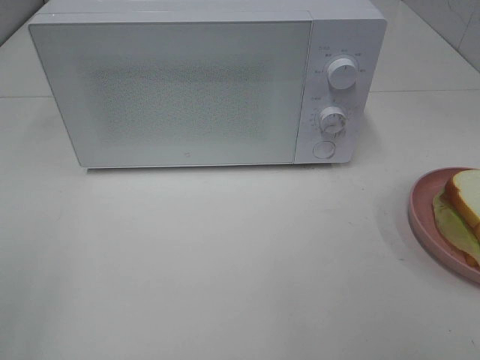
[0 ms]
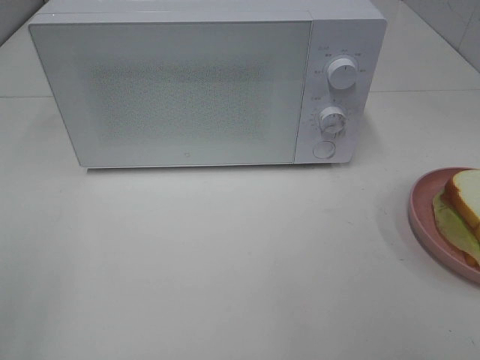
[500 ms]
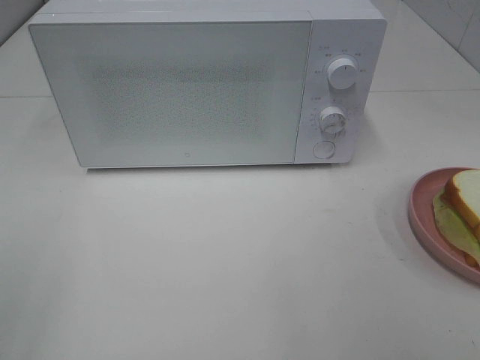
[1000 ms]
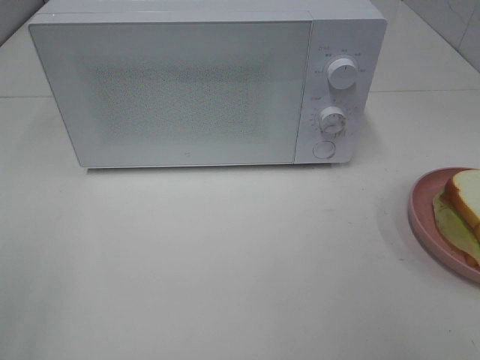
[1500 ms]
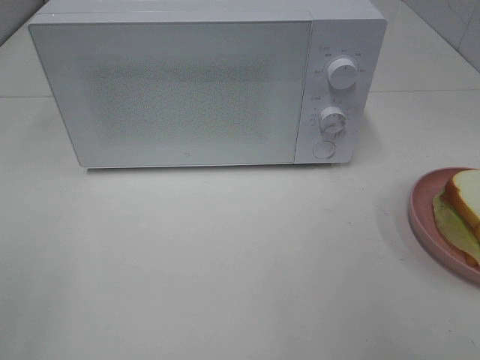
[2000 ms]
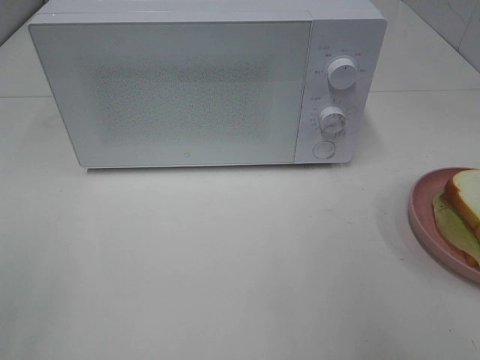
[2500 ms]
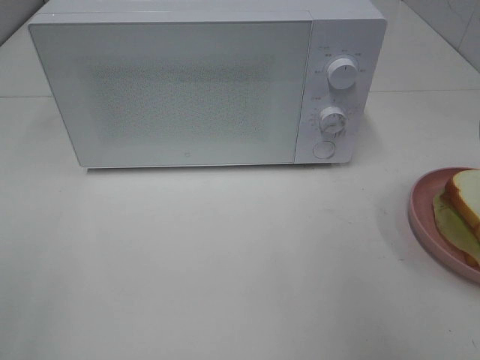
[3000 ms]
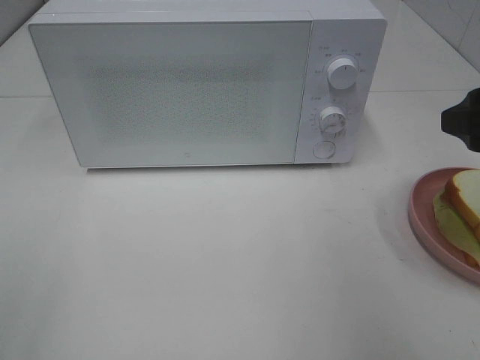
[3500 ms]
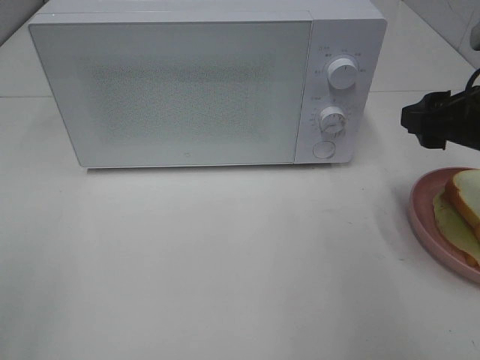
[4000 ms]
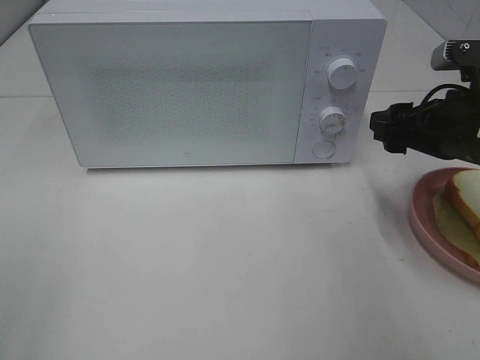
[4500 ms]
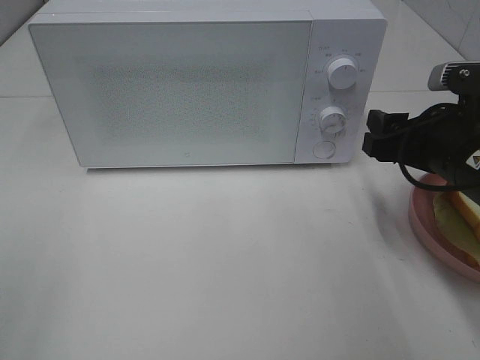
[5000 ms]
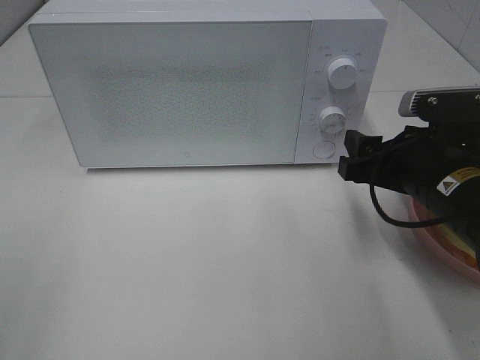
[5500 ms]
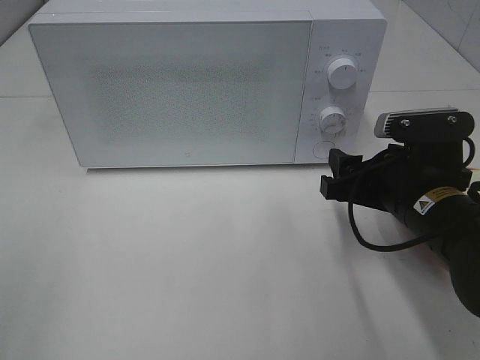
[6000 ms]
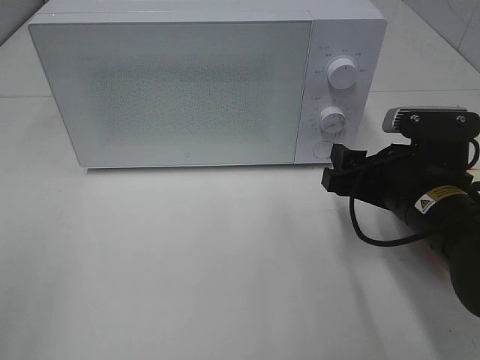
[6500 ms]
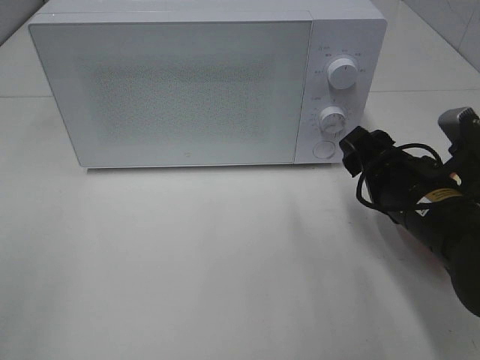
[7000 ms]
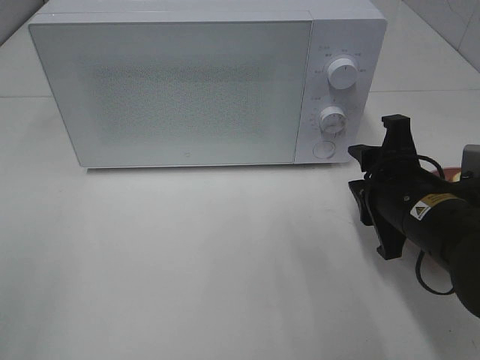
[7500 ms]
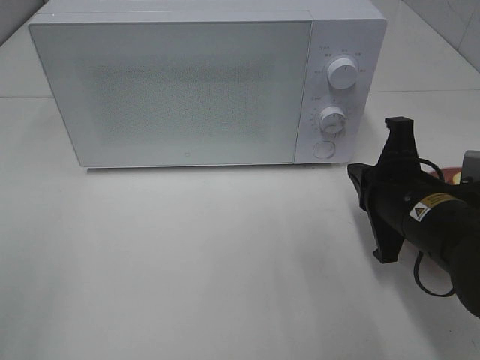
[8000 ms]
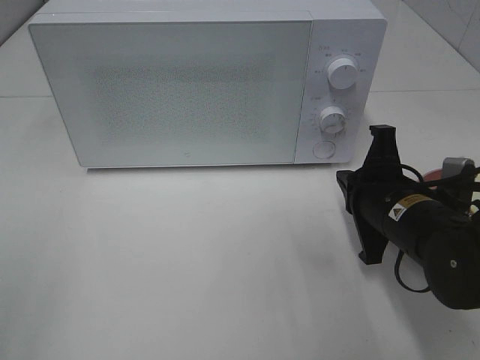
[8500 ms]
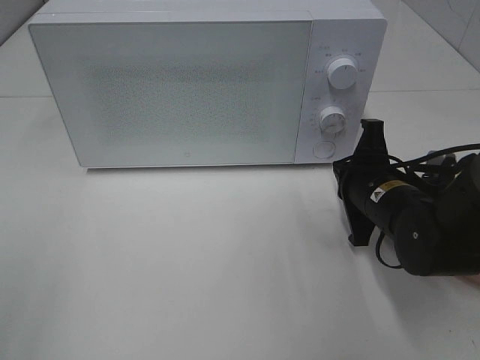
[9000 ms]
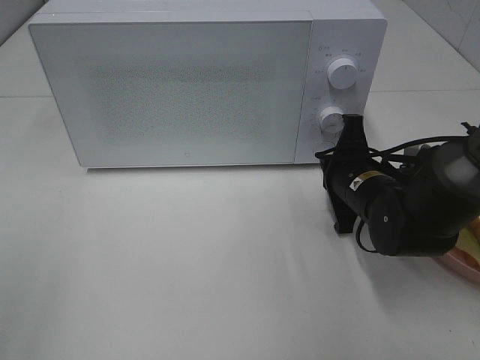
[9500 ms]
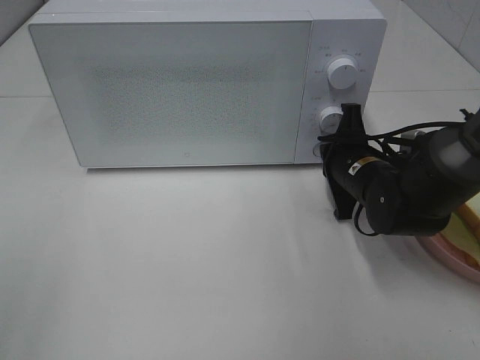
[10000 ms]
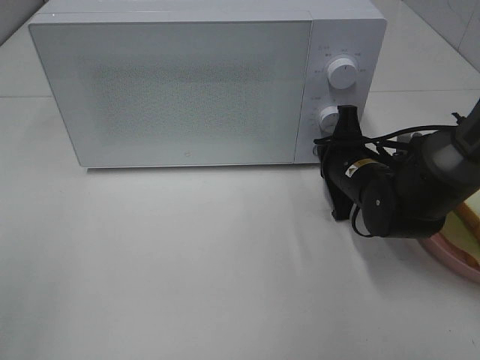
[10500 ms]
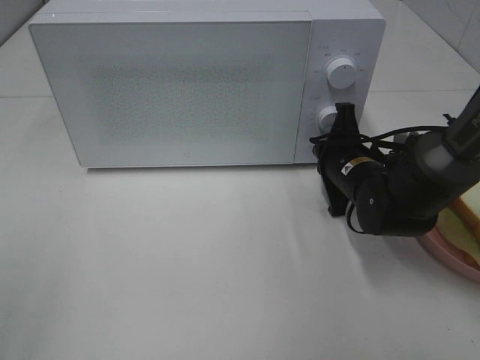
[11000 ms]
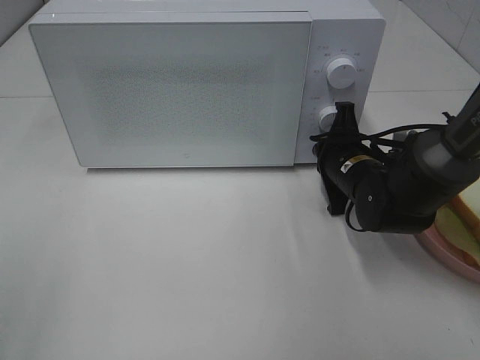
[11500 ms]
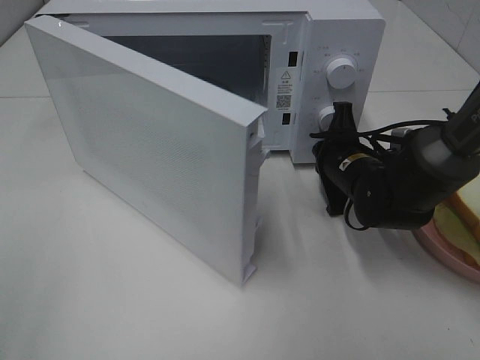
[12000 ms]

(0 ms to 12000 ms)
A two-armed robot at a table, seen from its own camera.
Task of the whole recording: Heat Sandwich.
2000 ms - 4000 ms: The right gripper heads forward and downward, covering some 20 cm.
4000 ms - 6000 ms: The right gripper shifts some 10 cm downward and to the left.
6000 ms - 8000 ms: The right gripper closes.
8000 ms - 10000 ms: The right gripper travels forward by some 10 cm.

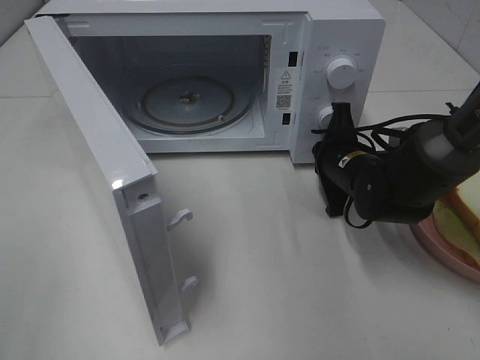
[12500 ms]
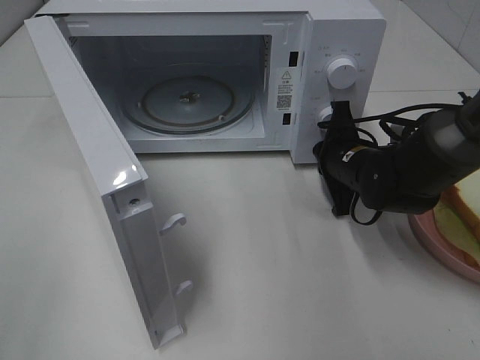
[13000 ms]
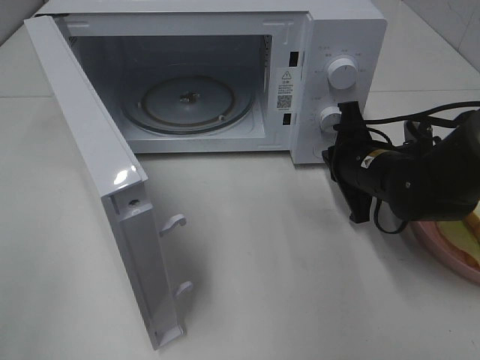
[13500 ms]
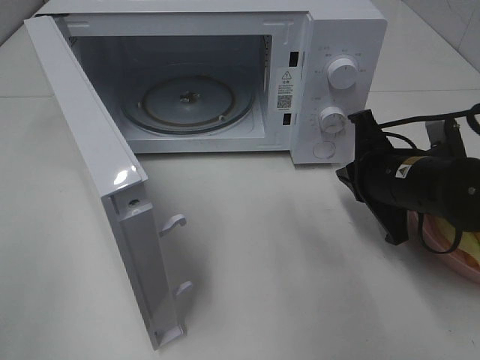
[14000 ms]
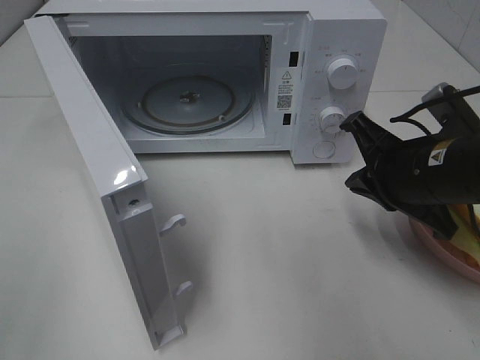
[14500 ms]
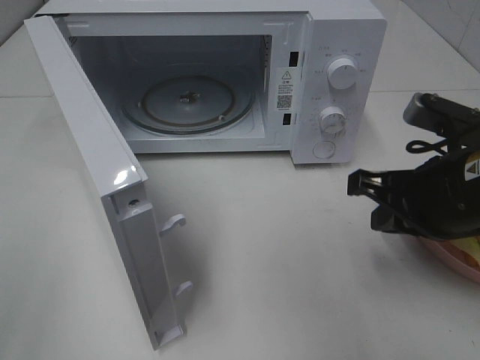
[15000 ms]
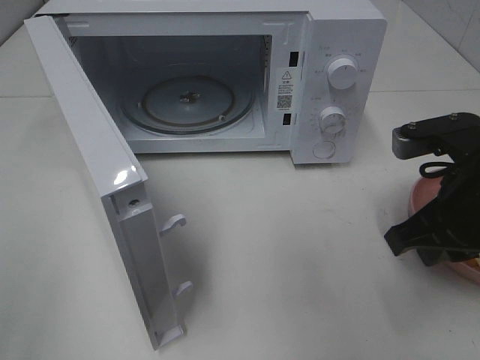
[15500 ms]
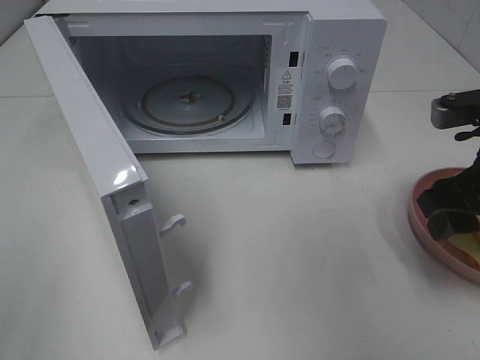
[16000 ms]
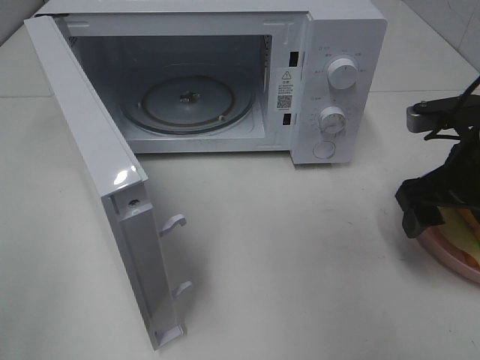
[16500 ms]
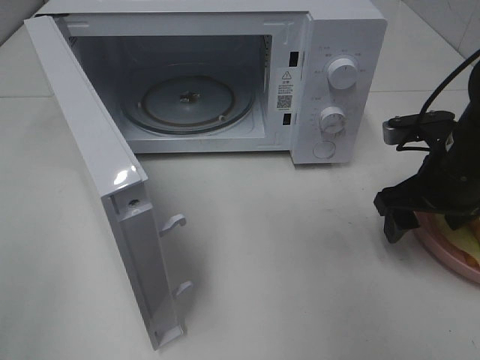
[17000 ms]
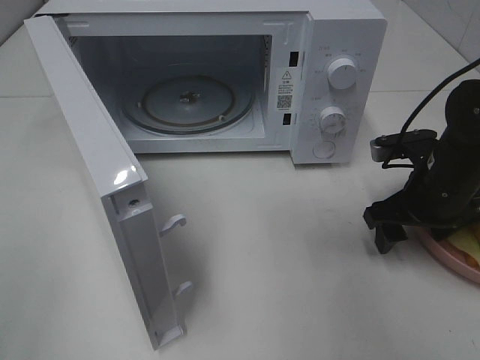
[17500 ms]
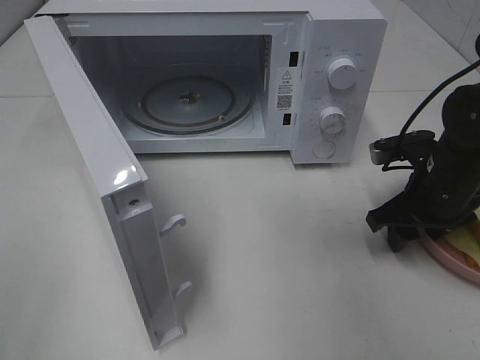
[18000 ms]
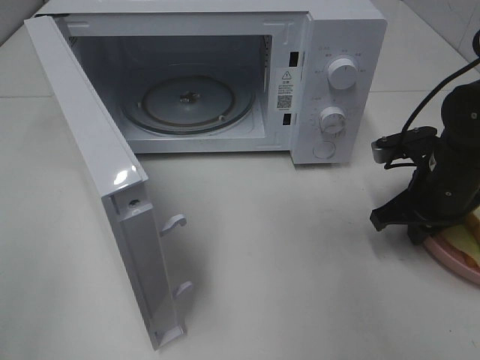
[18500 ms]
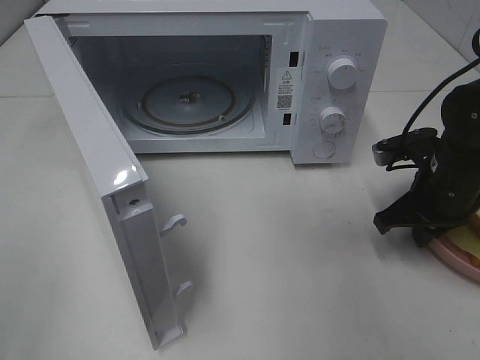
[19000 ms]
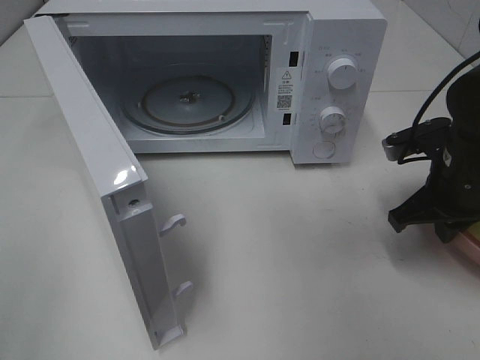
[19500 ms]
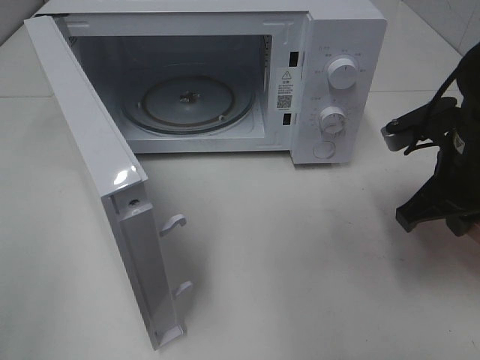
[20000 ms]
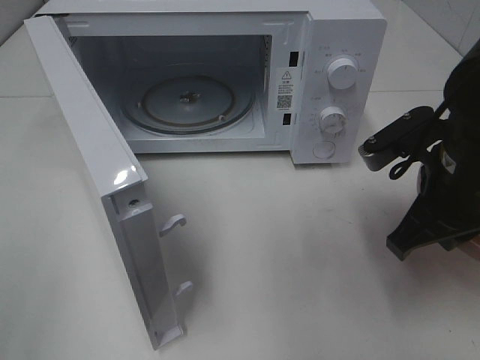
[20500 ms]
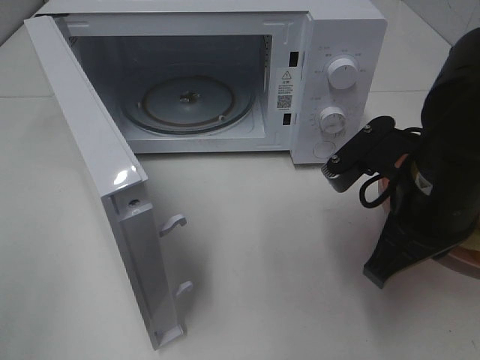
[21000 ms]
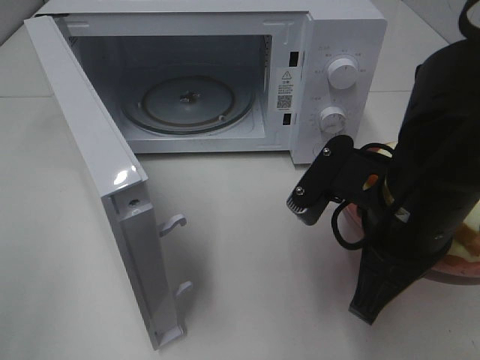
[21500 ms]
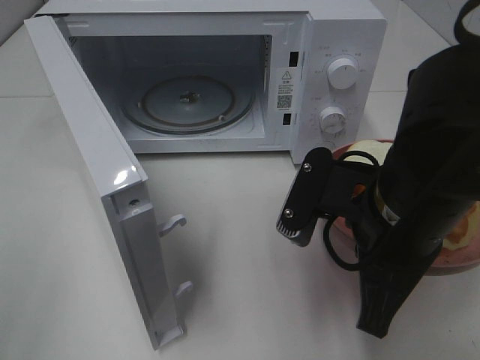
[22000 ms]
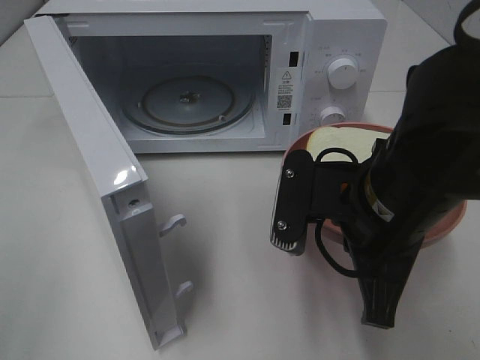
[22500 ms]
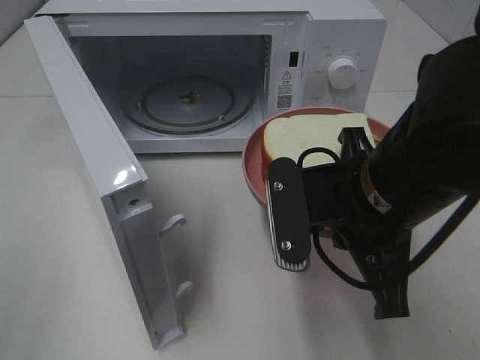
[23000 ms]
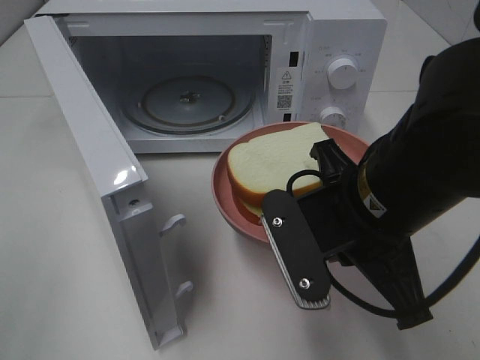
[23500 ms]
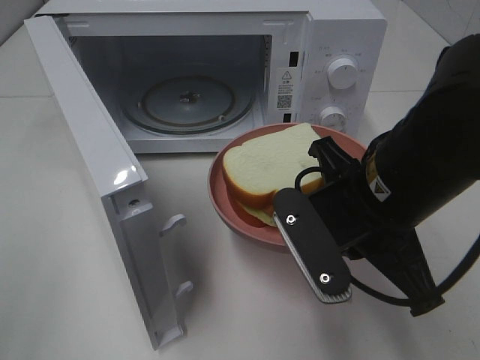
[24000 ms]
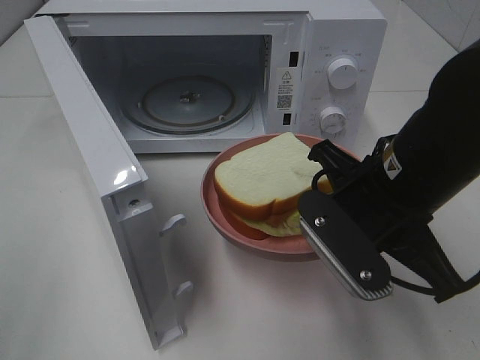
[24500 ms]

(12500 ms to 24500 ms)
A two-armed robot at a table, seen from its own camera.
Task of the whole recording: Heat Sandwich.
Step, 14000 ms - 18500 ms: Right hand: grab the plate with the sandwich.
12500 ms - 14500 ms: The right gripper heads backward and upward, covering about 15 cm.
14500 ms - 16500 ms: The right gripper moves to the right, approximately 5 cm, and opens.
16500 ms - 18500 ms: The right gripper moves downward, about 5 cm, and closes its fingers.
18500 ms - 20500 ms: The right gripper shifts roughly 10 cm upward, backward and to the left.
20500 ms - 22500 ms: The right gripper is displaced to the left by roughly 10 cm.

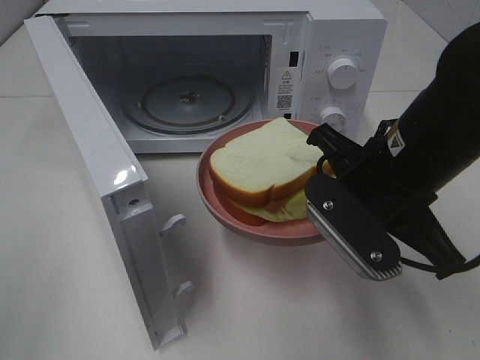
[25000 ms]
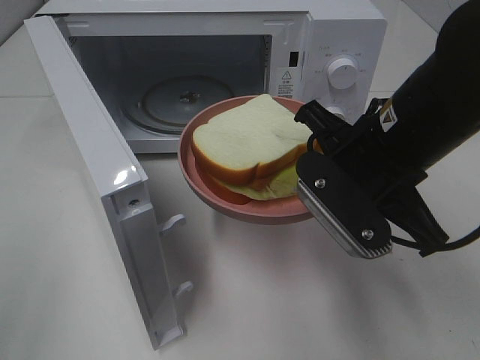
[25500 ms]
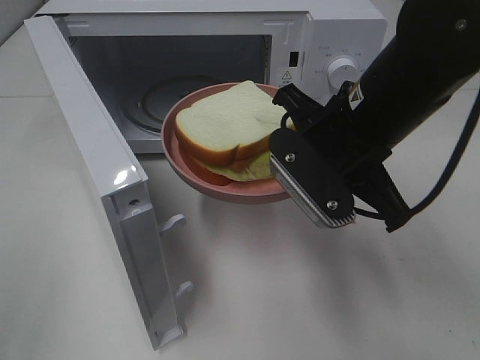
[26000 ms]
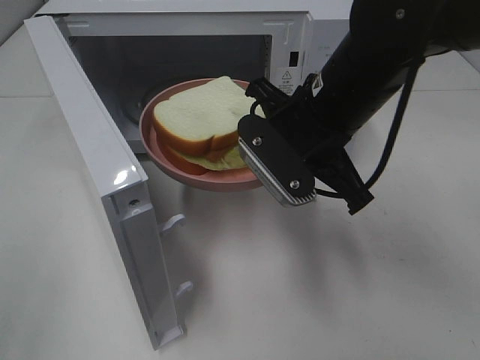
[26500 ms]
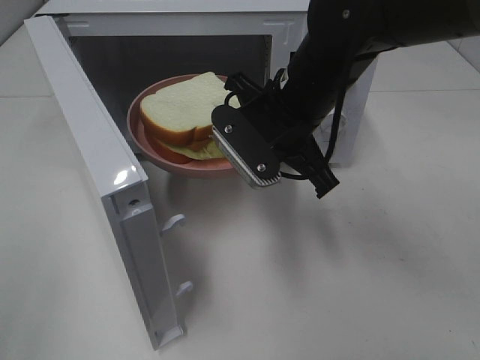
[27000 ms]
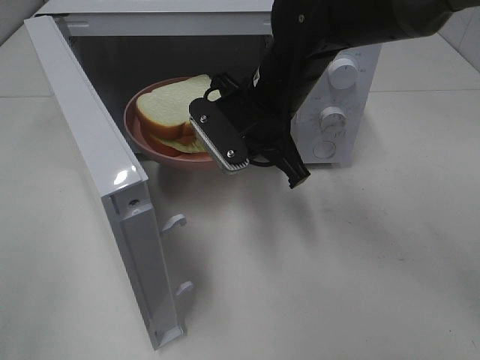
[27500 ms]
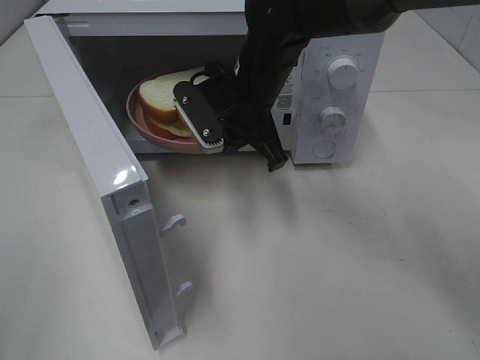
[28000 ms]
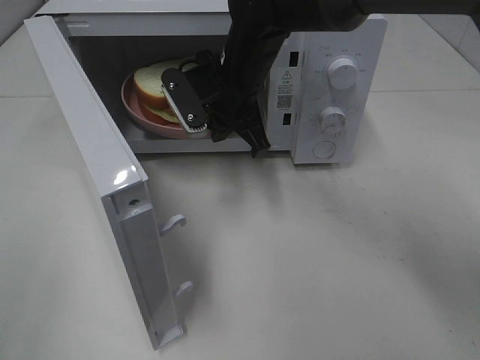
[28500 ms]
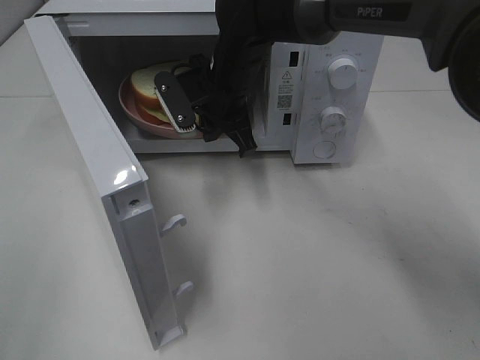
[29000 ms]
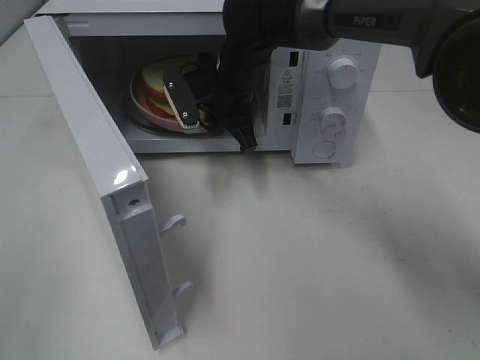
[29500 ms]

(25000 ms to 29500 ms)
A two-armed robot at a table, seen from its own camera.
Task of the whole recording: Heat Sandwich.
25000 ms - 27000 ms: The right gripper goes approximately 10 cm forward and to the left.
27000 ms - 29500 ms: The right gripper goes some 15 cm forward and to the left.
